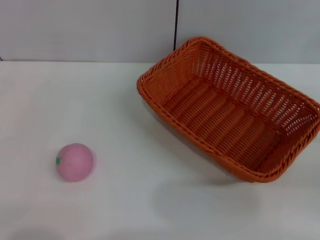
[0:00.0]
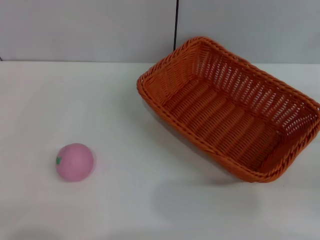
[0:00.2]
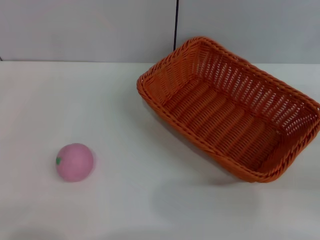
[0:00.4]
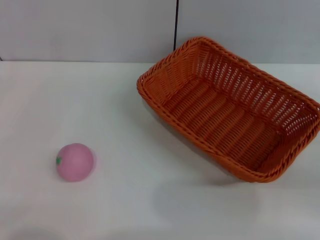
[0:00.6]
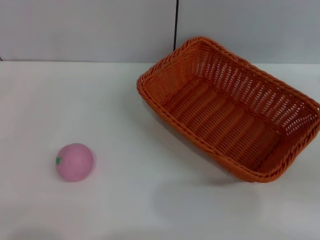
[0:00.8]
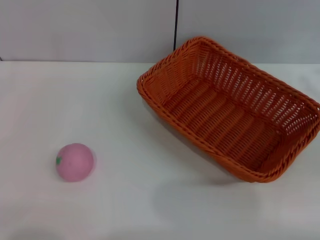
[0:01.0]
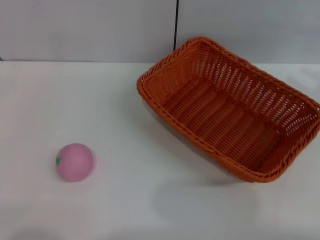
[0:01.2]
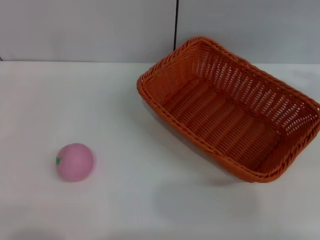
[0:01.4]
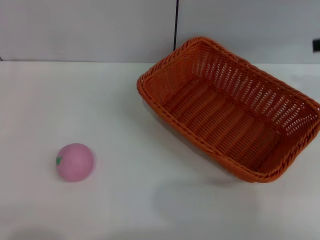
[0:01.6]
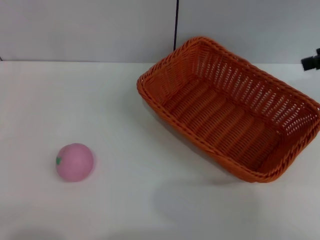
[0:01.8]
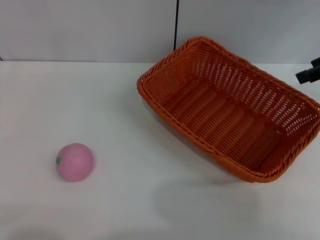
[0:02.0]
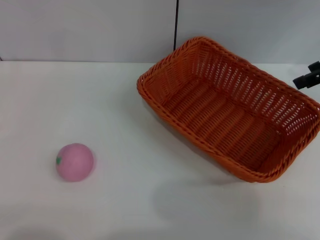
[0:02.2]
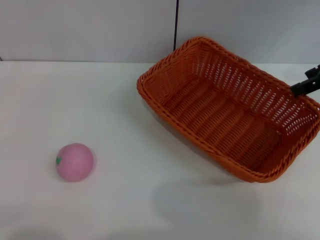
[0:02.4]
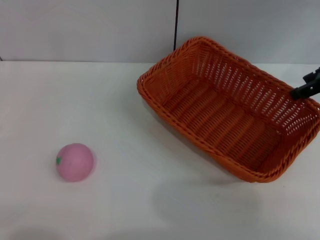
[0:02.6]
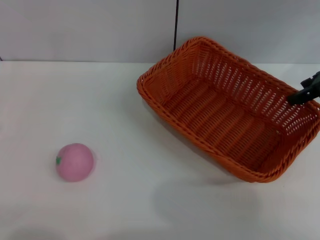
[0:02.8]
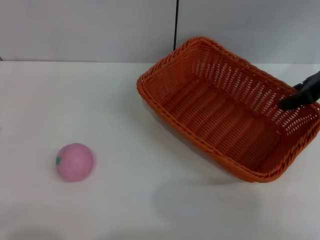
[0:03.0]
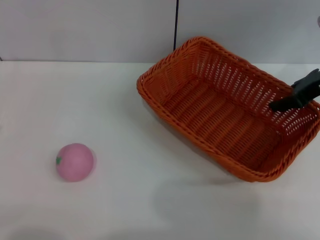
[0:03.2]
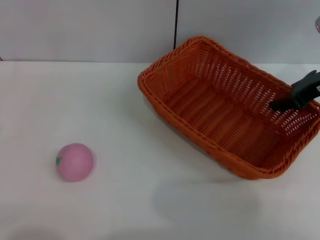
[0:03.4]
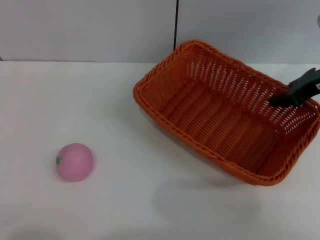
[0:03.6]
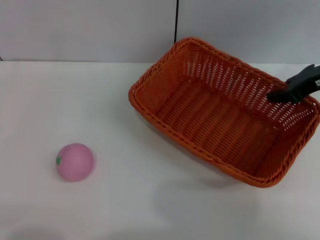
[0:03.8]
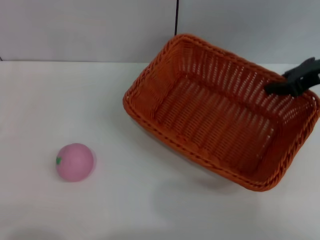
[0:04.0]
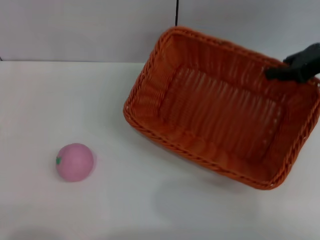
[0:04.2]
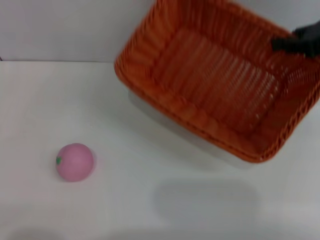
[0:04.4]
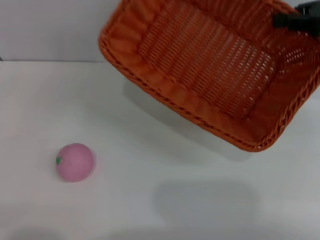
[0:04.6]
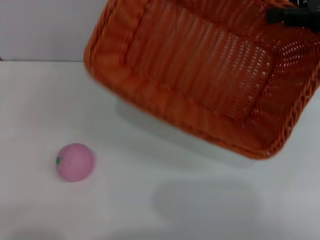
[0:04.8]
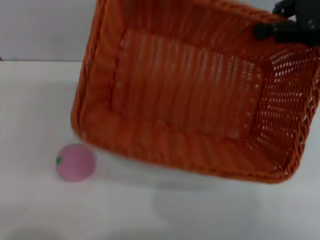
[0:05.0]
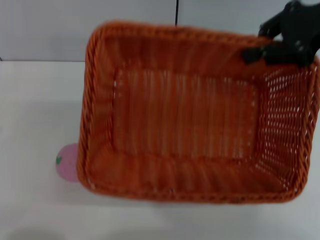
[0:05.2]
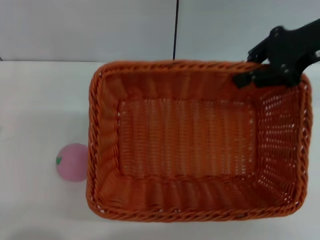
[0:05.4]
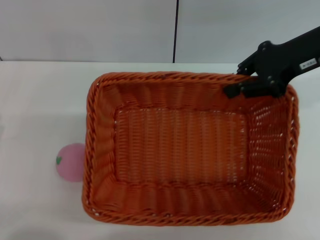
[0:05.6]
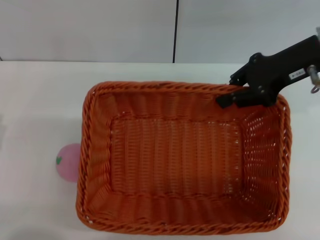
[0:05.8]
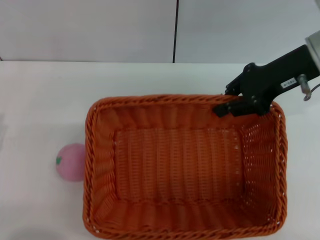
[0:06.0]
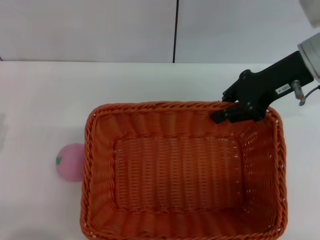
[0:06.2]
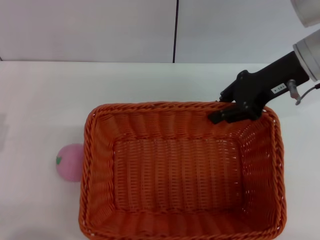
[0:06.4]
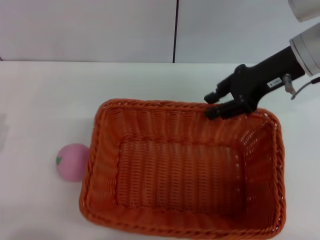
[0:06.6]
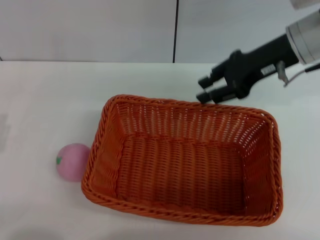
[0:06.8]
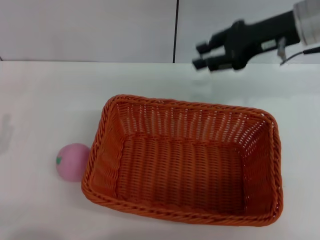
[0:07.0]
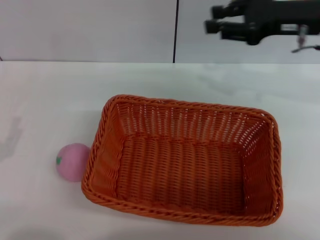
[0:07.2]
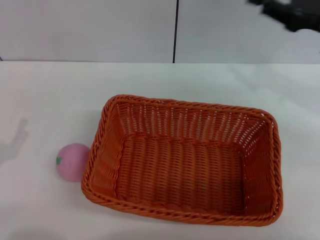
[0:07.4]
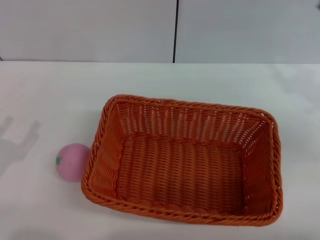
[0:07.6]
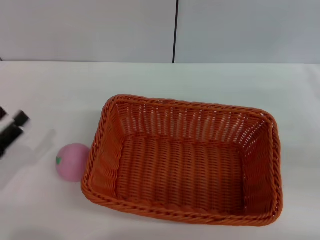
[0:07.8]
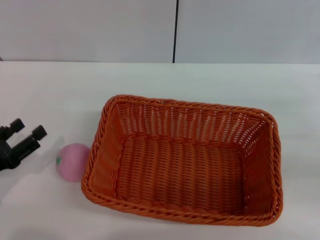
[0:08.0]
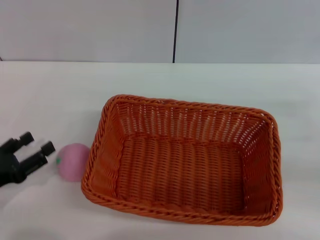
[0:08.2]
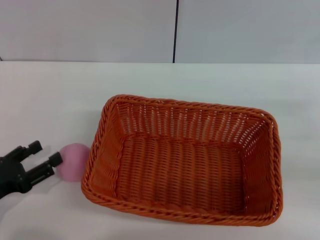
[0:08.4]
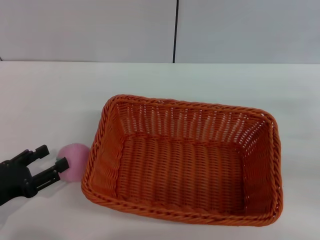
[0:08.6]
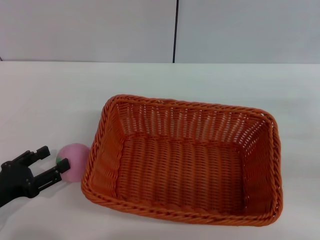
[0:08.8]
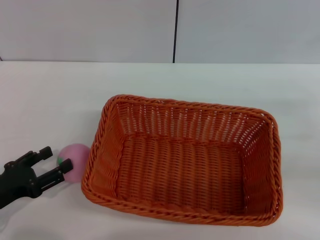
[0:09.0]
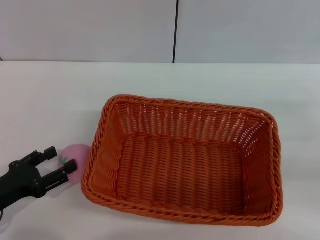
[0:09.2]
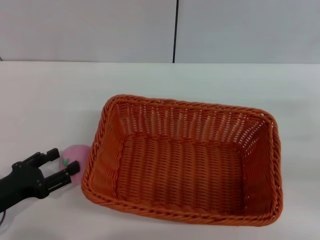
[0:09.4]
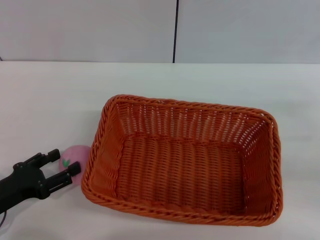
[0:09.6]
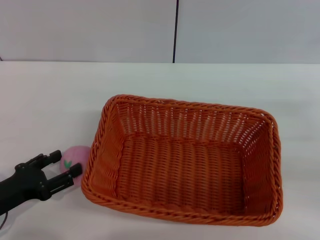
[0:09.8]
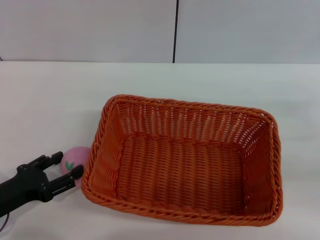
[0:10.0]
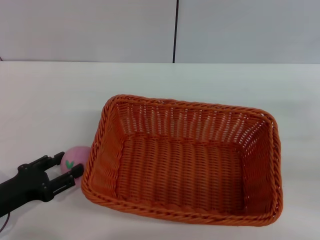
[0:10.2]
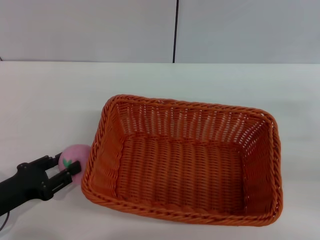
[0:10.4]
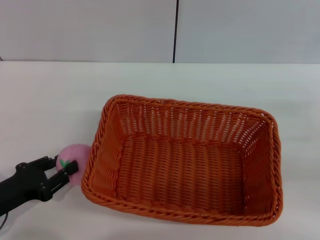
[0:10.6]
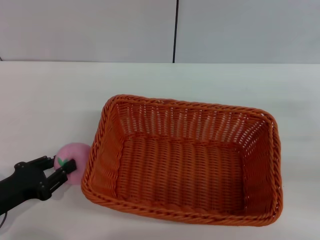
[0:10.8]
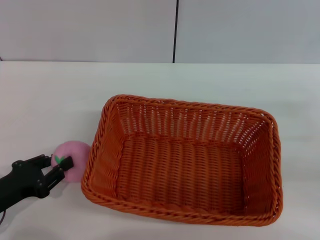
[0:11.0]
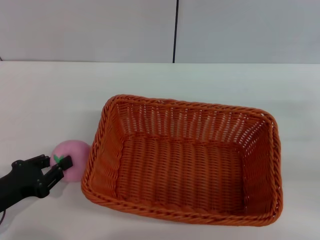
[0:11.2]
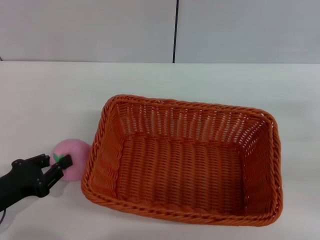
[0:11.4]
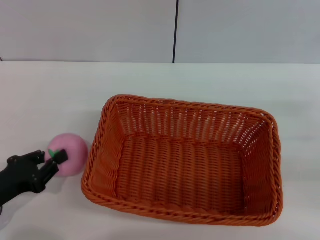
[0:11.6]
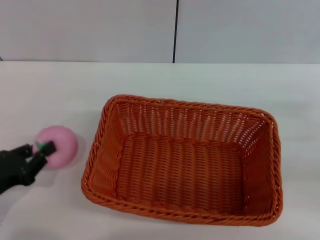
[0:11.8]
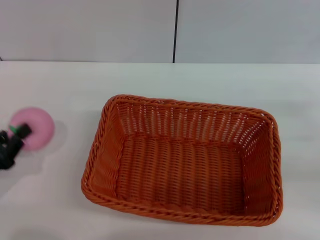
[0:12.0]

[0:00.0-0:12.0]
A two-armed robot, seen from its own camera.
Step, 0:00.0 to 0:04.6: Pick up the light basket with the right gripper.
Step, 0:04.8 to 0:06.8: Place the light basket in the center of view with the right gripper.
0:01.6 to 0:03.0: The right gripper travels to the left and downward by roughly 10 cm.
0:03.0 to 0:04.4: The right gripper heads upward, covering some 5 cm, and closes.
0:04.4 to 0:06.0: The right gripper travels to the left by some 10 cm.
0:06.0 to 0:07.6: The right gripper shifts approximately 15 cm to the right, backward and downward, and opens up.
0:09.0 to 0:10.4: Both grippers stay put.
0:10.4 to 0:12.0: The left gripper closes its fingers.

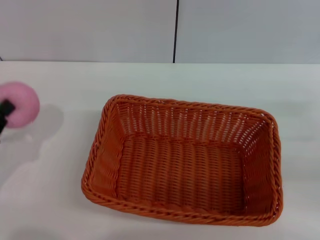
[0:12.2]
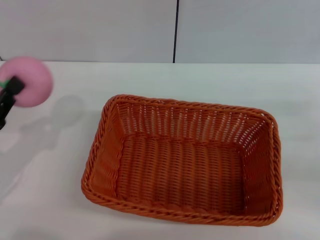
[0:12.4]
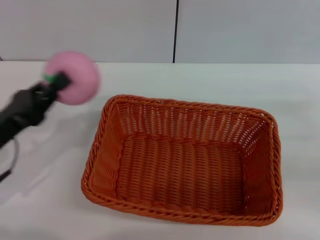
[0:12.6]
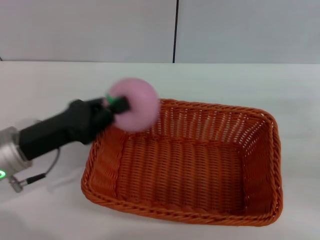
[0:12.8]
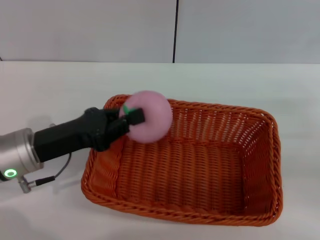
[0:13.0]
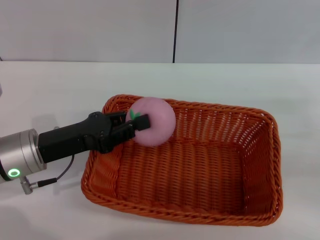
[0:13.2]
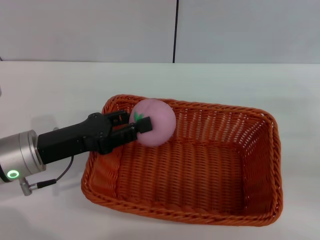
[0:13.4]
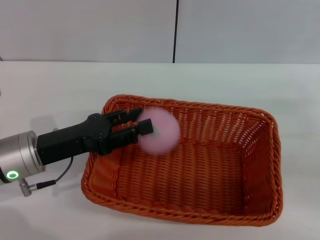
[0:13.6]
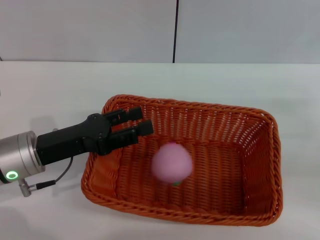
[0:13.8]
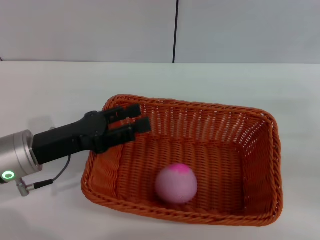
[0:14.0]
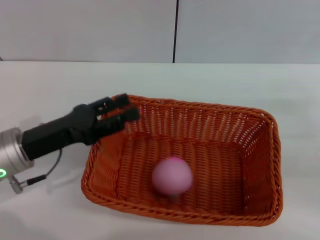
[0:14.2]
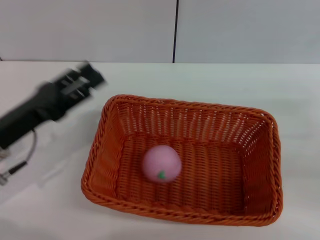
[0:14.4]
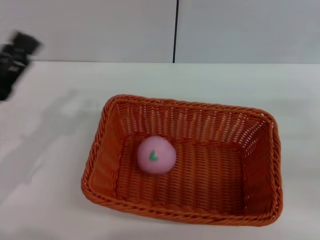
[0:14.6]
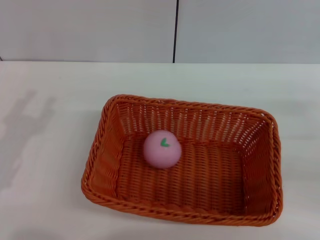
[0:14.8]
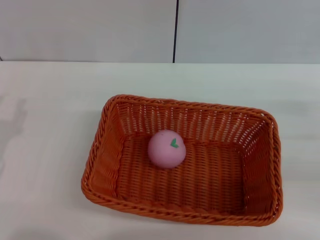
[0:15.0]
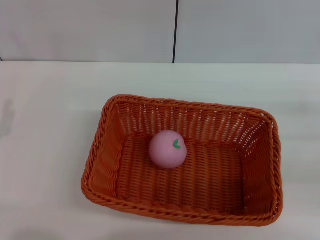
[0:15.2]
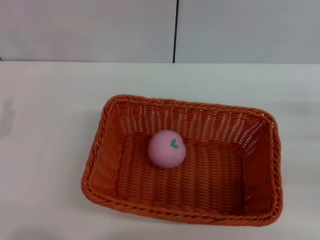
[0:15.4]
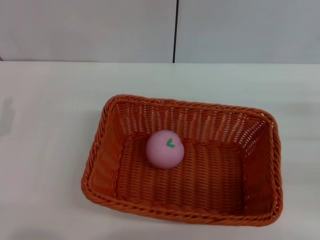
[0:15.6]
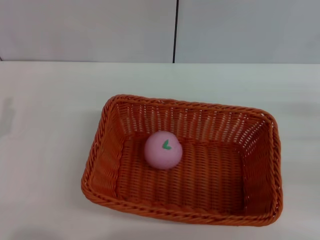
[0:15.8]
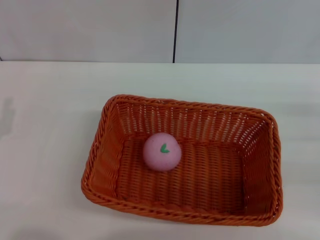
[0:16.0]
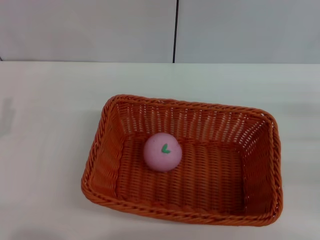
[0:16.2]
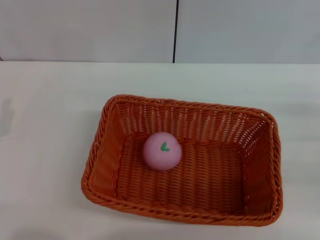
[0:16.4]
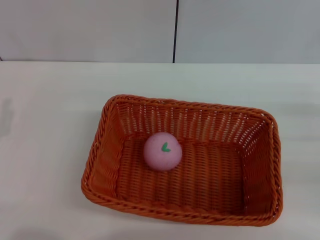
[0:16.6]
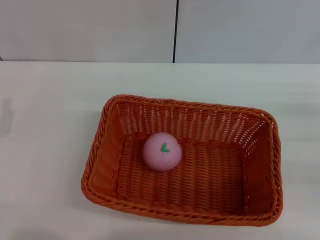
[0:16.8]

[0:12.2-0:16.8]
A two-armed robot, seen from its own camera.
Step, 0:12.6 to 0:14.2: Place the peach into the basket with the left gripper.
0:12.2 to 0:13.8: The left gripper is displaced to the right and forward by some 15 cm, and opens up.
0:13.8 to 0:15.2: The left gripper shifts about 10 cm to the left and backward.
0:15.2 to 0:16.8: The two grippers keep their place.
